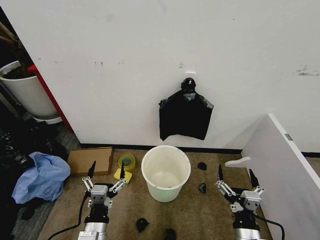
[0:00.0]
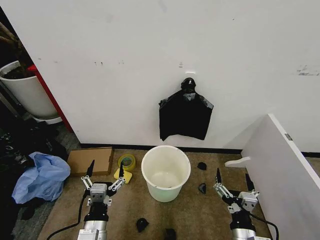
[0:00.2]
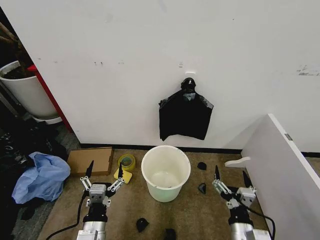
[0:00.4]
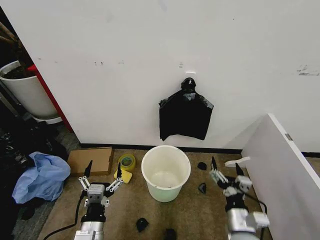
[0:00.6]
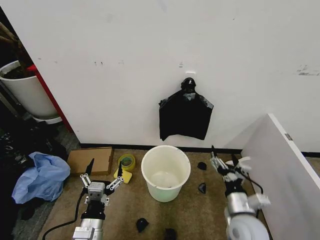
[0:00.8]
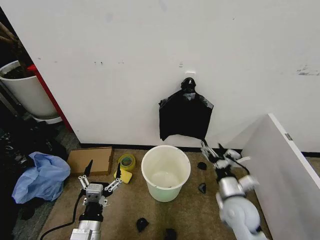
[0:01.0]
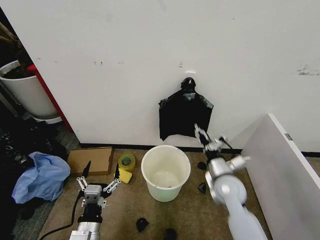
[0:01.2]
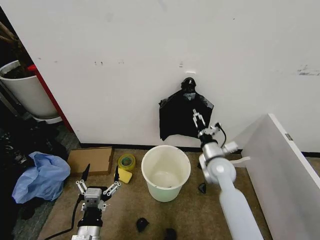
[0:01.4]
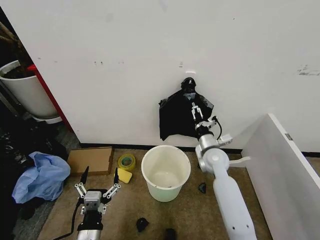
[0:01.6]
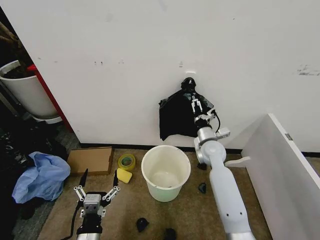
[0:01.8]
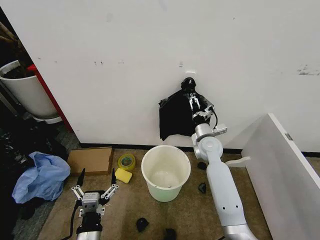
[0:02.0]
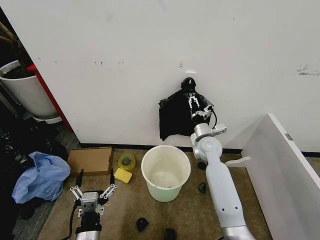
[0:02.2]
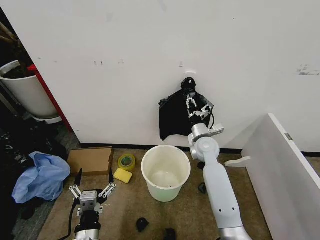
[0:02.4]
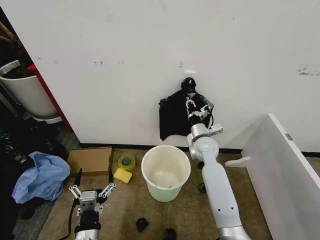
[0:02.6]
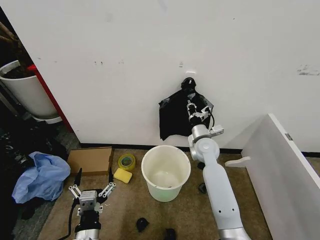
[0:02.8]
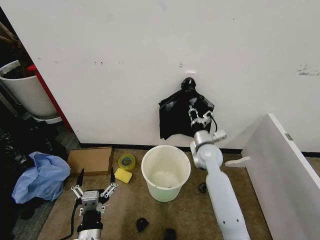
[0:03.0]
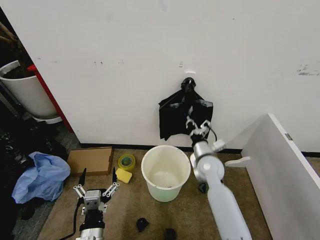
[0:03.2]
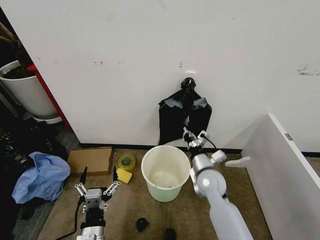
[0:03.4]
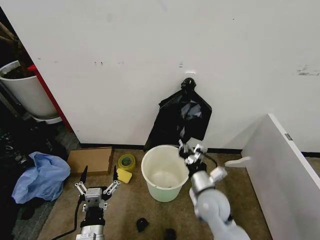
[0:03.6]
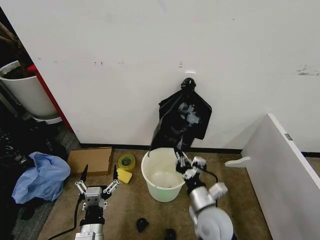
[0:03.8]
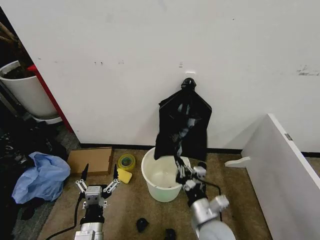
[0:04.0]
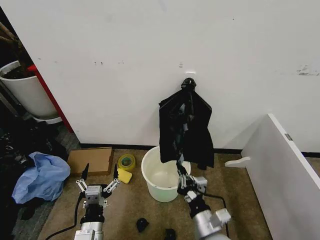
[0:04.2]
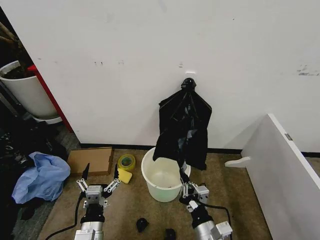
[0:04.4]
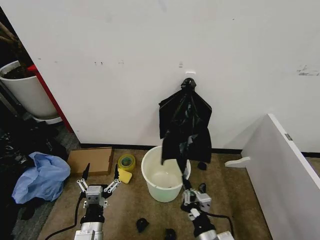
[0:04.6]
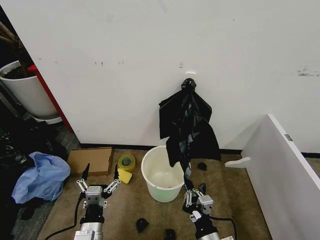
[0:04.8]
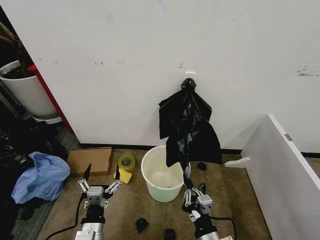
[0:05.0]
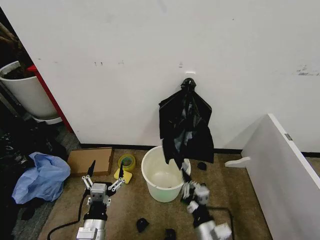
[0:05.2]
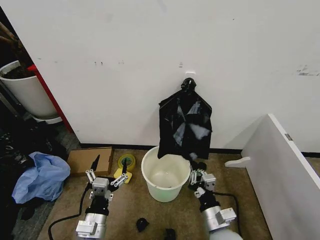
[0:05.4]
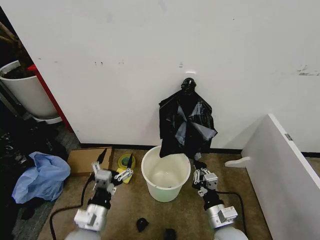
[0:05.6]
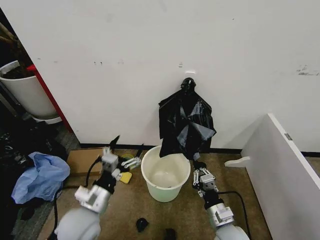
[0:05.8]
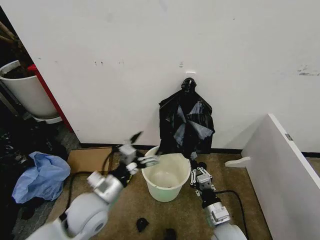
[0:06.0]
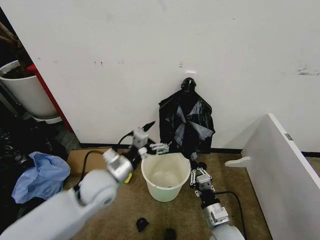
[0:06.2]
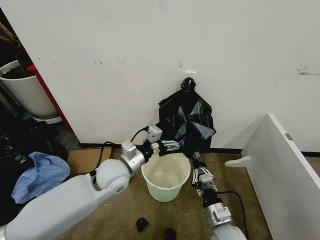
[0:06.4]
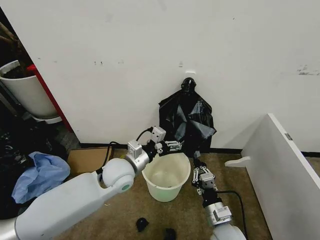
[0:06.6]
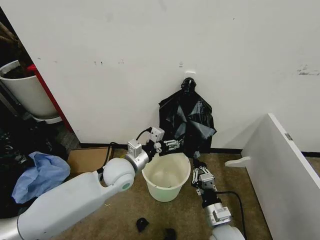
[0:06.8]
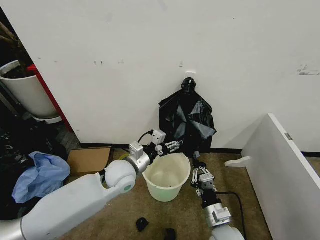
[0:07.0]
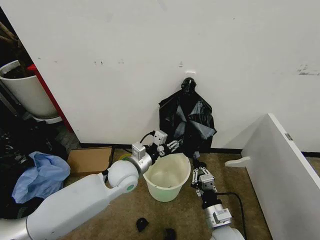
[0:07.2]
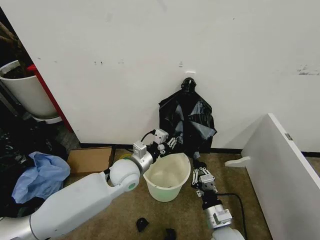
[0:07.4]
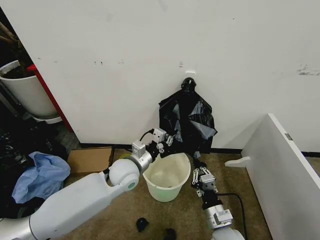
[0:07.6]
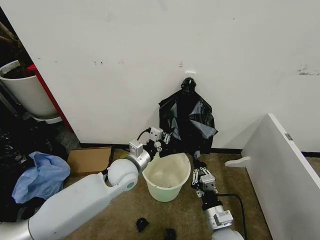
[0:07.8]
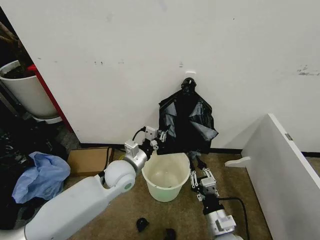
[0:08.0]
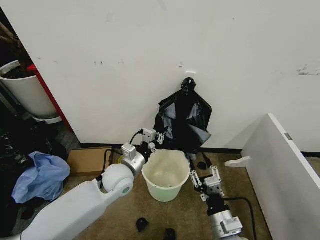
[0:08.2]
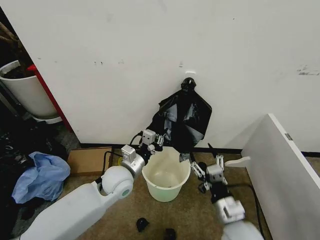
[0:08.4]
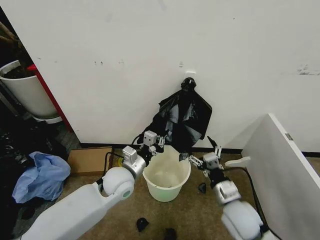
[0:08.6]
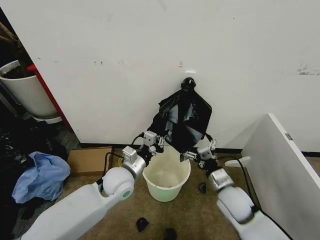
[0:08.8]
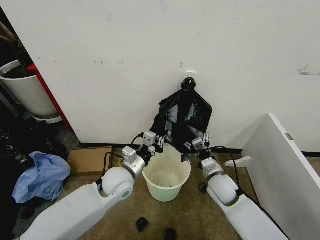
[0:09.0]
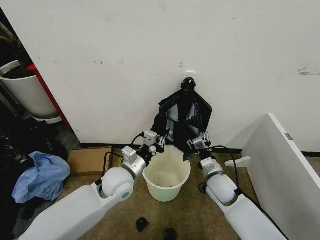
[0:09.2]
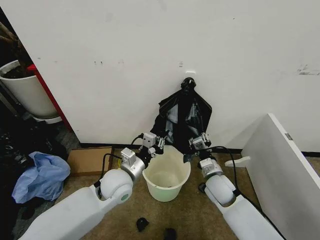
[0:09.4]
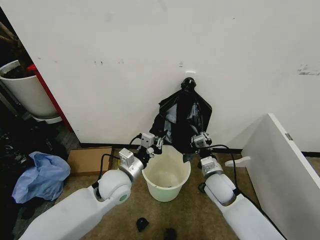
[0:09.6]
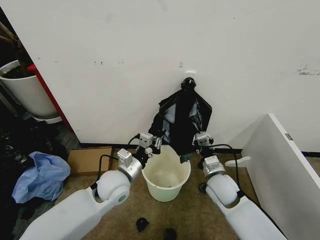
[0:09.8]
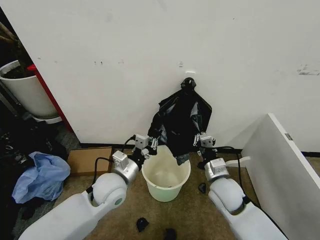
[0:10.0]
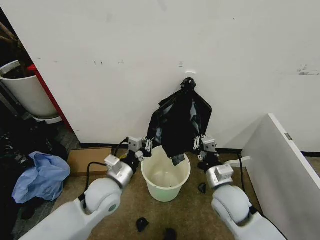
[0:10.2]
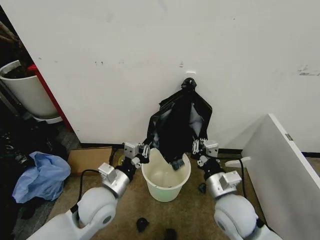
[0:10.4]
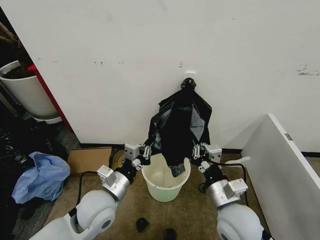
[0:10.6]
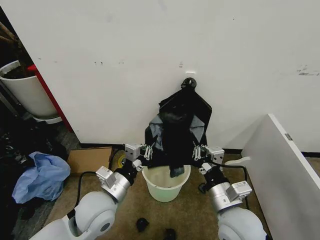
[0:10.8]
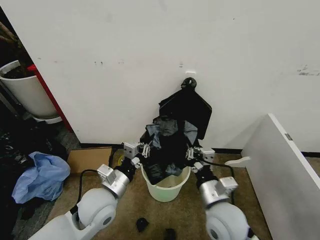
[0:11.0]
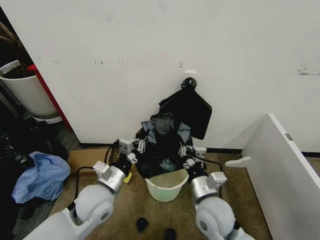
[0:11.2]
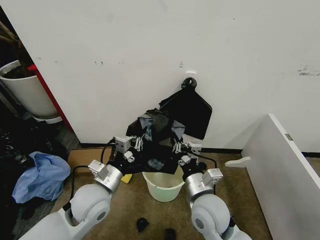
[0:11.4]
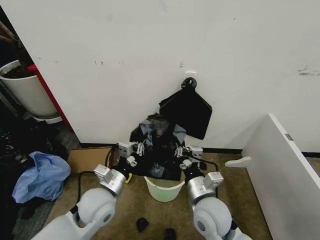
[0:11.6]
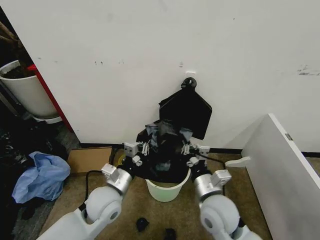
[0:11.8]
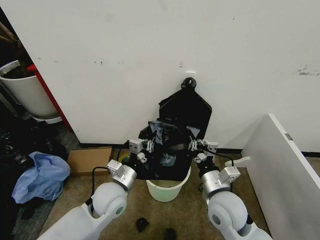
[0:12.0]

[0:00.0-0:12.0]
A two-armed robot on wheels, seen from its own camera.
Task of the whole recording: Place the garbage bag over the trash bin.
0:01.6 to 0:03.0: The right gripper closes its fingers.
0:03.0 to 0:04.4: The right gripper travels backward by some 30 cm.
0:04.4 to 0:06.0: The left gripper heads forward and upward, covering some 15 cm. Meanwhile the right gripper moves forward, about 5 cm.
0:06.0 to 0:07.6: The left gripper goes roughly 15 cm forward and to the right, and closes.
0:07.6 to 0:09.0: The right gripper heads forward, covering about 15 cm, and opens its fingers.
0:09.0 to 0:10.4: The left gripper moves backward, about 5 cm. Meanwhile the right gripper shifts roughly 10 cm backward and upward, and closes up.

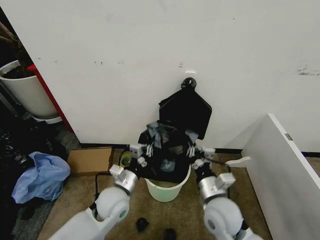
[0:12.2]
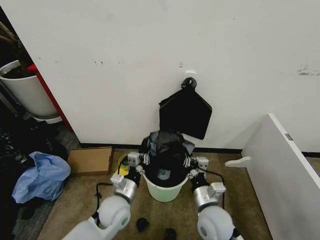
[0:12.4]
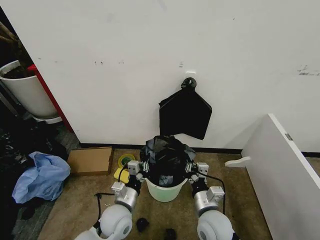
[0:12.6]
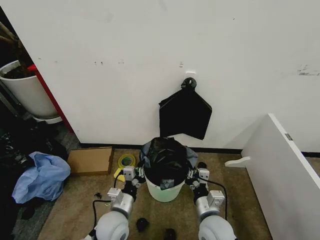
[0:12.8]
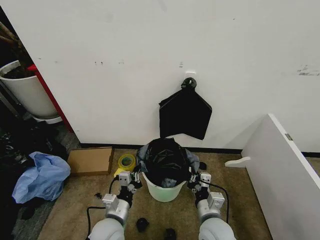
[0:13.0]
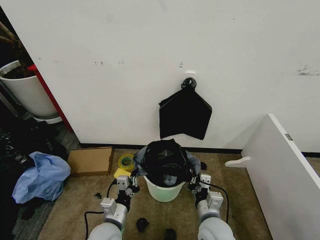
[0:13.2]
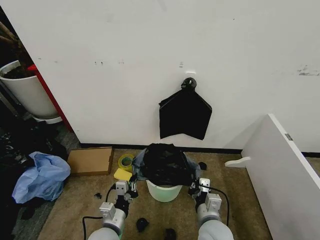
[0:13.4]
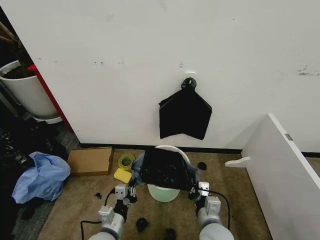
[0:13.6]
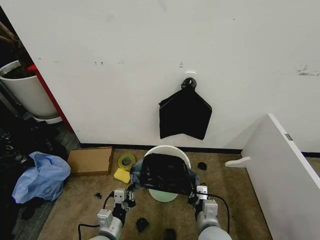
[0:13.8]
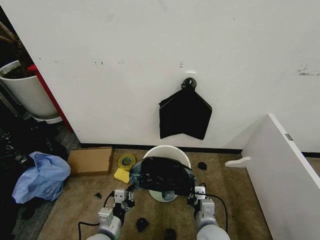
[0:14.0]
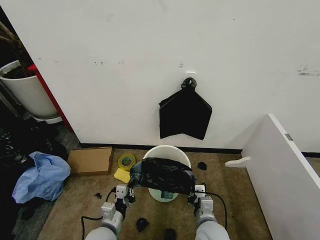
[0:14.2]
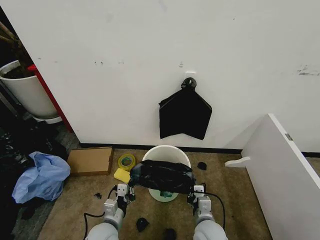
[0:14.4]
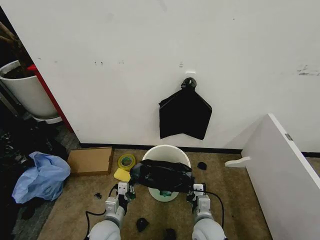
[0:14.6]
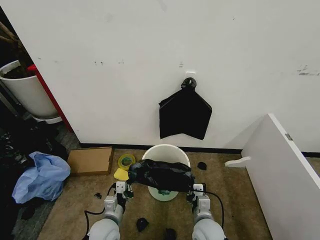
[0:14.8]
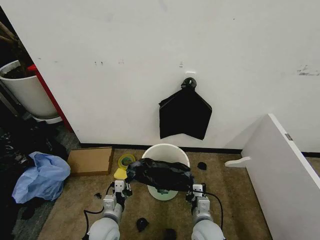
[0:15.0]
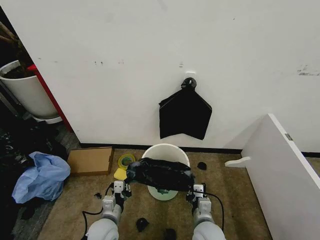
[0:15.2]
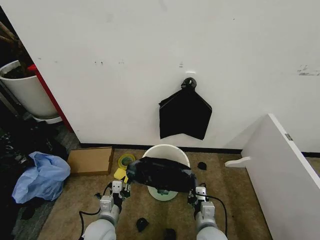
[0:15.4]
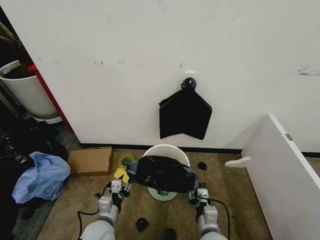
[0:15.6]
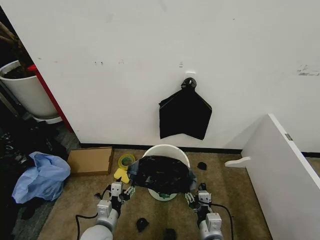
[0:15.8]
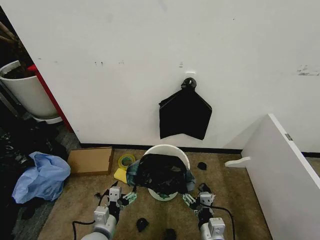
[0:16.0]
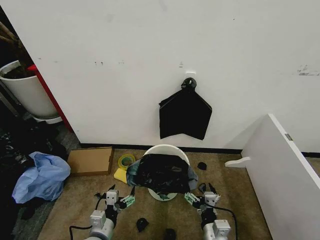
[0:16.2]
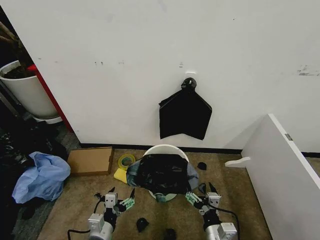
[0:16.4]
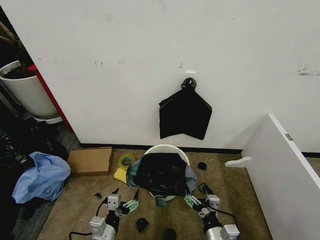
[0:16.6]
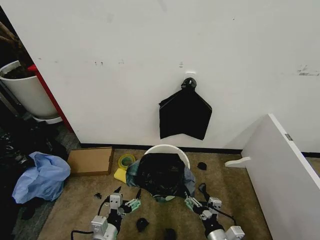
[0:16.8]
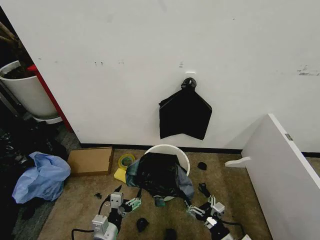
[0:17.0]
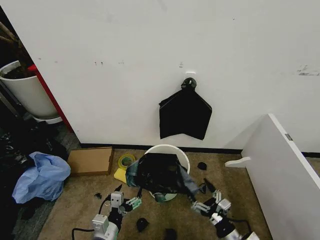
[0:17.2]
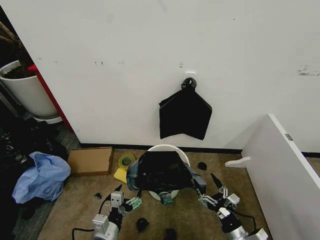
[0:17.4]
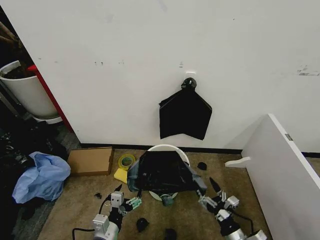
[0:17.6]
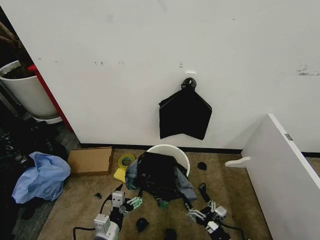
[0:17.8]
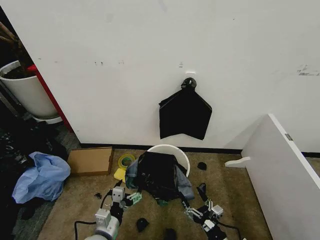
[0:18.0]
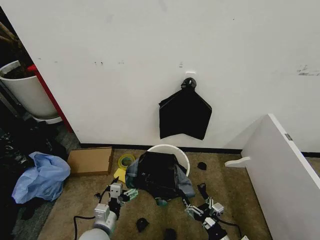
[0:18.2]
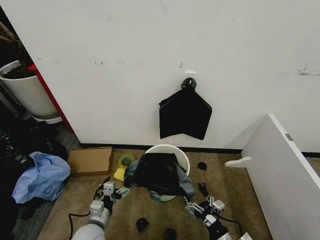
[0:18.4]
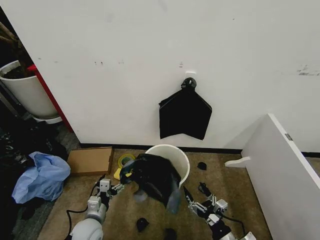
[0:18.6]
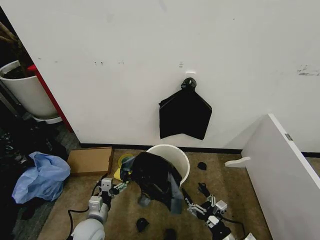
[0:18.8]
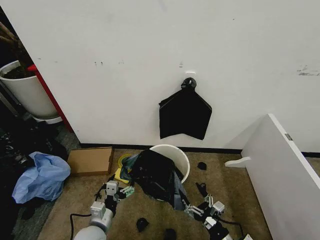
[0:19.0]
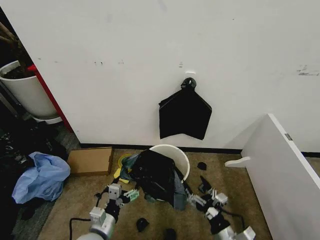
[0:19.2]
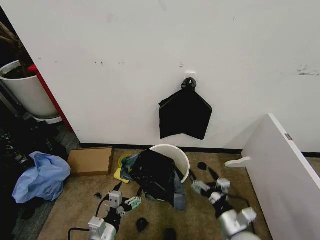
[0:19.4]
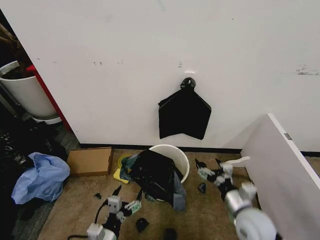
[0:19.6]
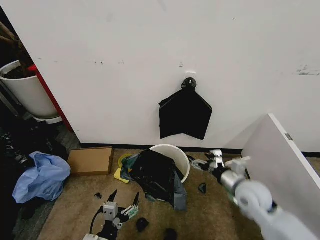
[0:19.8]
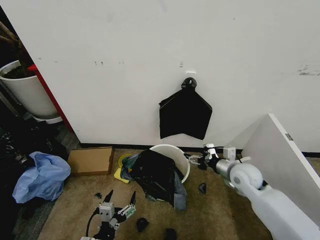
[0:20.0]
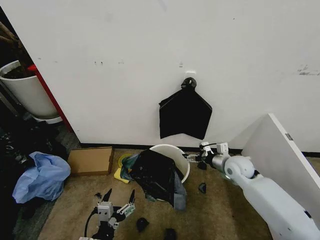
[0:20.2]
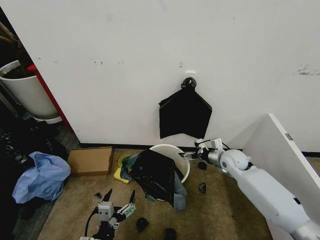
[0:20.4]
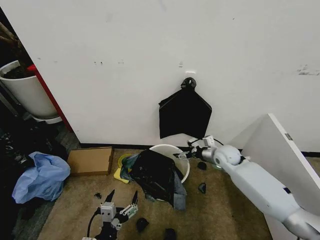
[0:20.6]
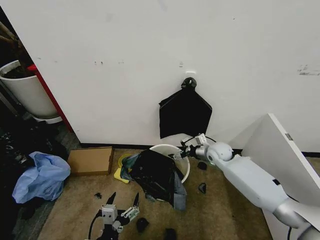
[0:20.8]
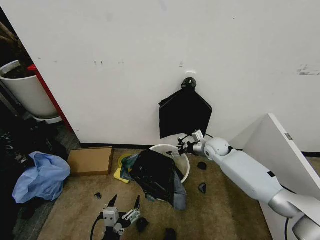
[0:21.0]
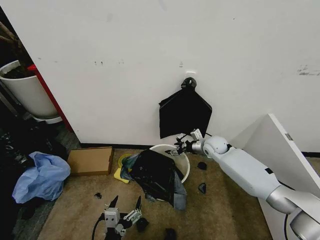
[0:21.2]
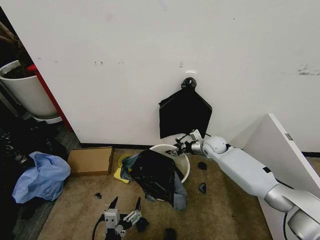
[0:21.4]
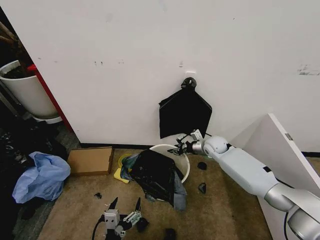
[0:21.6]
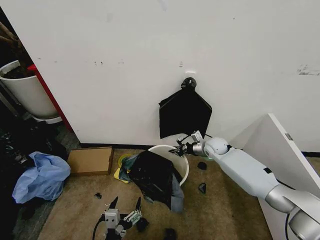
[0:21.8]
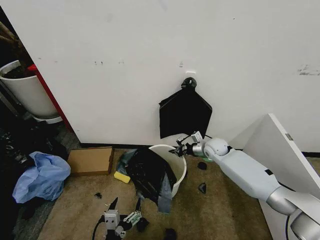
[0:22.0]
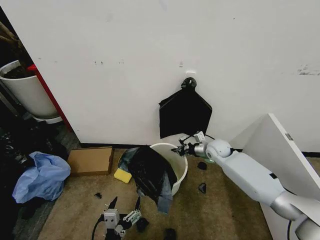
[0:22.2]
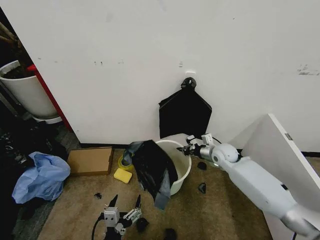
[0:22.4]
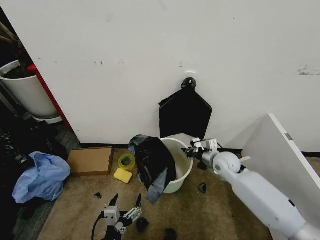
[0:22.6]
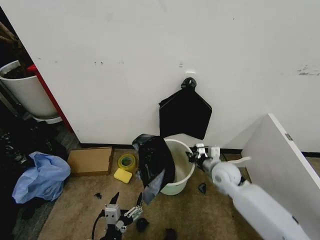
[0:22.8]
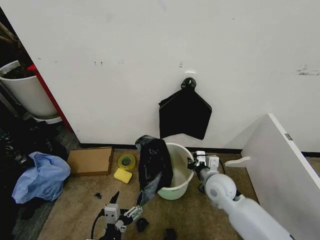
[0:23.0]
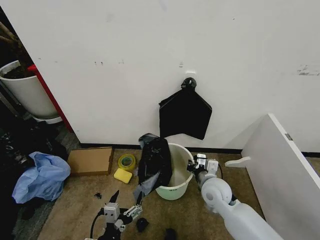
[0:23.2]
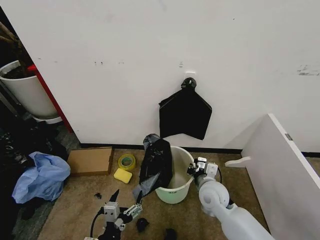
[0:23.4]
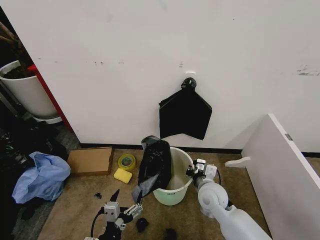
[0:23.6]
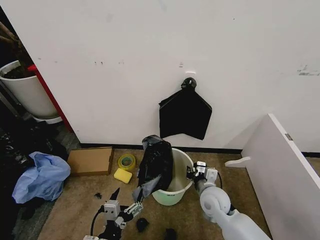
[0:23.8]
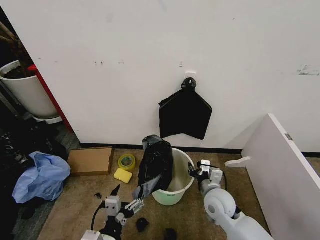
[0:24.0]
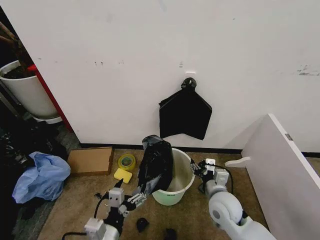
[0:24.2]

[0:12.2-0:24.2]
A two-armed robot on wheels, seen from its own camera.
Task of the whole recording: Place the garbage bag over the trash bin.
0:12.2 to 0:13.8: The right gripper shifts approximately 10 cm downward and backward. Meanwhile the left gripper shifts approximately 15 cm backward and downward.
0:13.8 to 0:15.2: The left gripper is displaced forward by approximately 5 cm. The right gripper shifts some 5 cm downward.
0:15.2 to 0:16.6: The grippers both shift backward by approximately 10 cm. The left gripper opens its fingers. The right gripper opens up.
0:16.6 to 0:18.2: The right gripper moves roughly 5 cm.
0:18.2 to 0:19.8: The right gripper heads forward and upward, covering about 25 cm. Meanwhile the left gripper travels backward by some 10 cm.
0:19.8 to 0:21.2: The right gripper shifts roughly 20 cm forward.
0:21.2 to 0:22.6: The right gripper heads backward, covering approximately 10 cm, and closes.
0:22.6 to 0:24.2: The left gripper heads upward, covering roughly 5 cm, while the right gripper goes some 15 cm backward, and opens.
